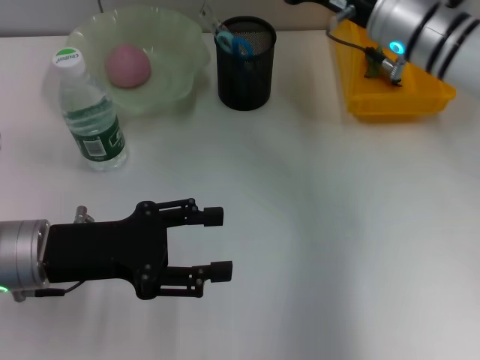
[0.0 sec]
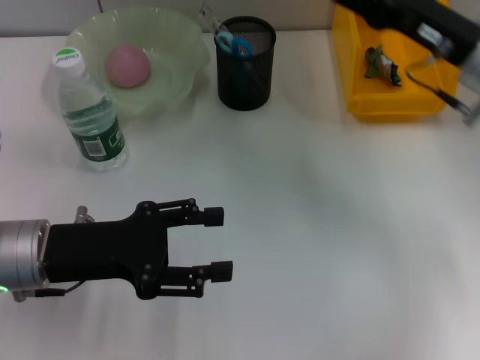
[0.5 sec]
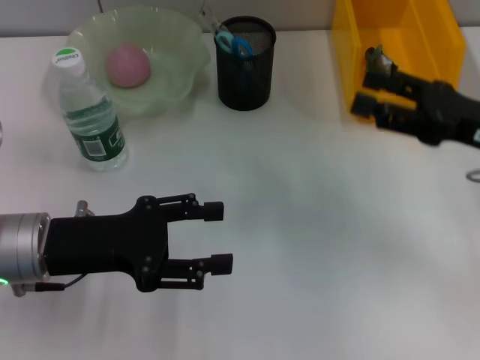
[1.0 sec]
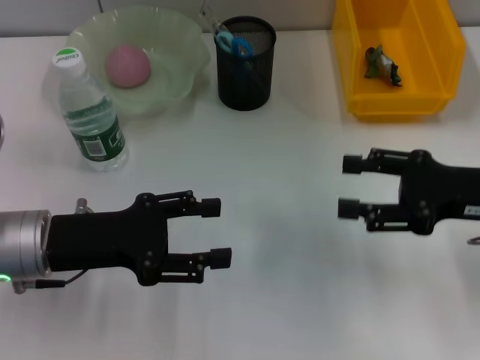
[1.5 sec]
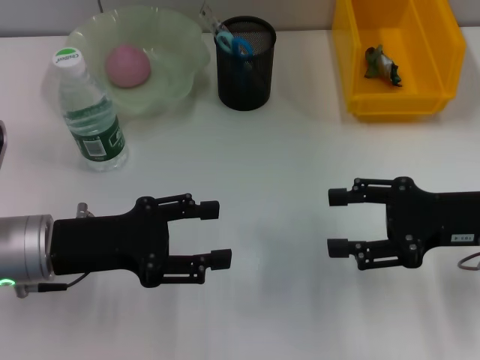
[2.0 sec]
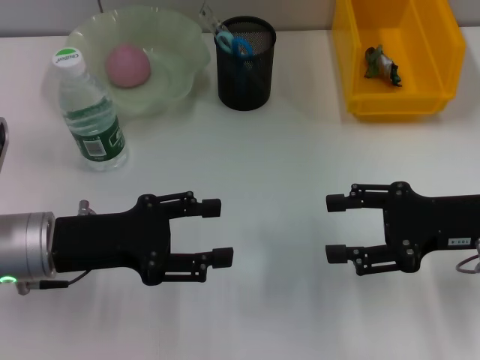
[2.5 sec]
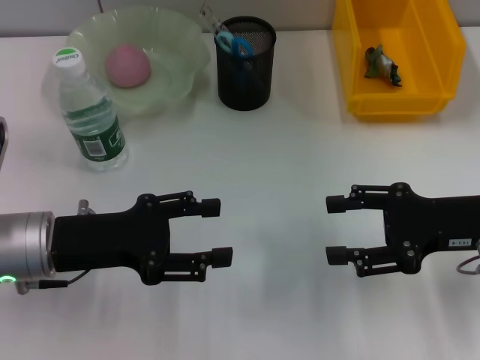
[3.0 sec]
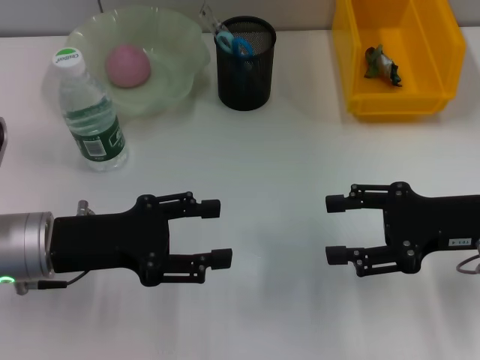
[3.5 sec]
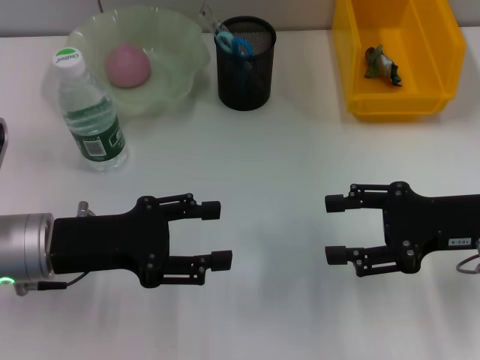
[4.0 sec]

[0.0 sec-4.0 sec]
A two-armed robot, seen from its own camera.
0.0 sec to 2.0 sec: The right gripper heads backward and to the right, covering about 15 cm.
2.0 sec to 4.0 sec: Both grippers stay put.

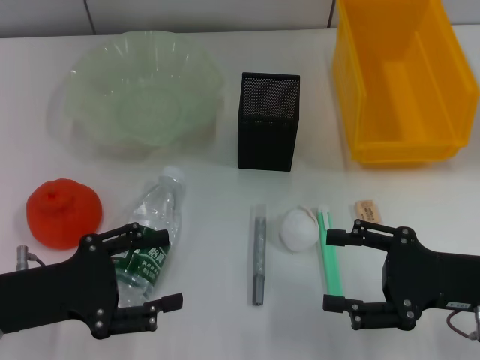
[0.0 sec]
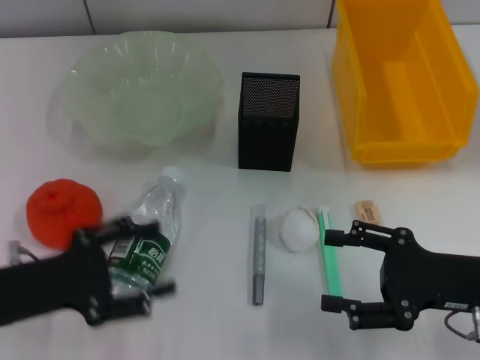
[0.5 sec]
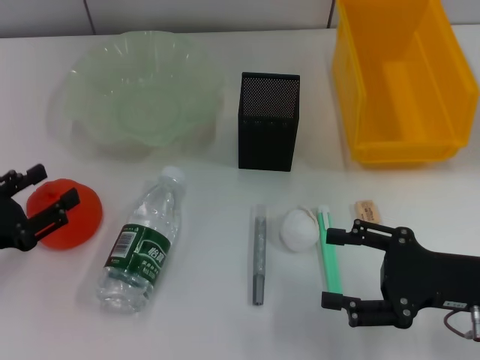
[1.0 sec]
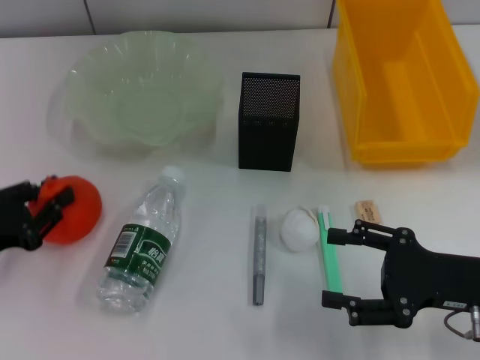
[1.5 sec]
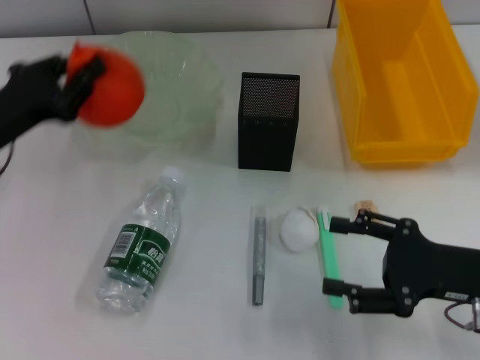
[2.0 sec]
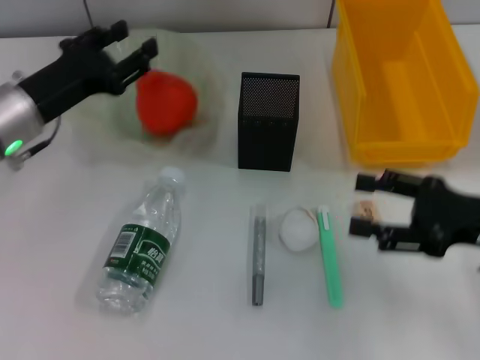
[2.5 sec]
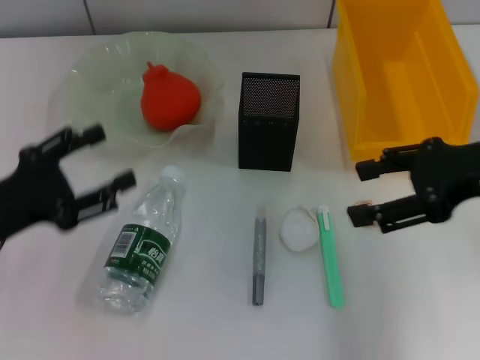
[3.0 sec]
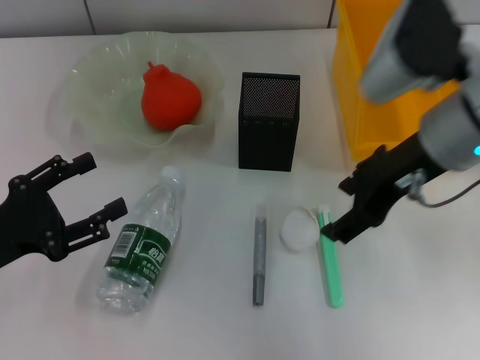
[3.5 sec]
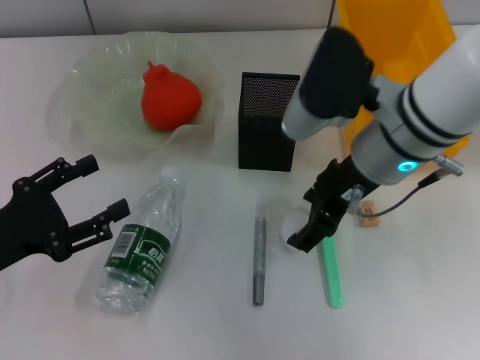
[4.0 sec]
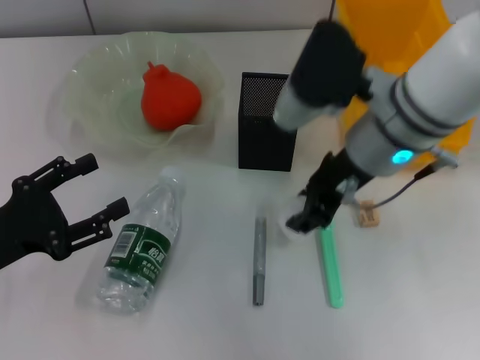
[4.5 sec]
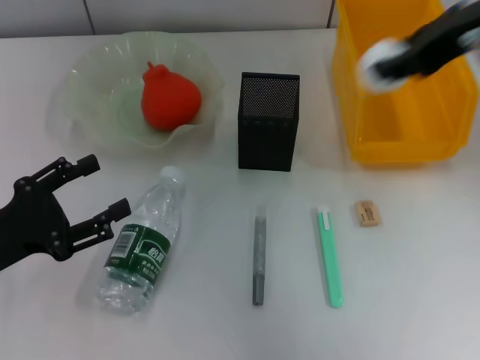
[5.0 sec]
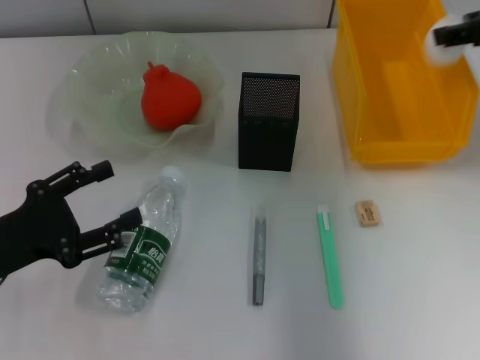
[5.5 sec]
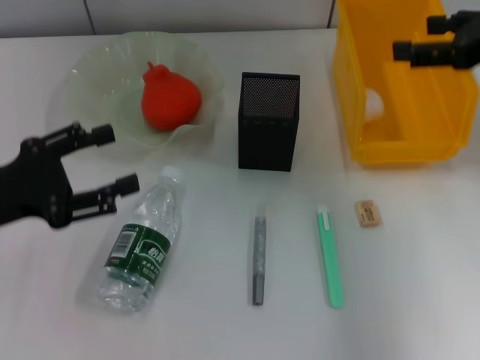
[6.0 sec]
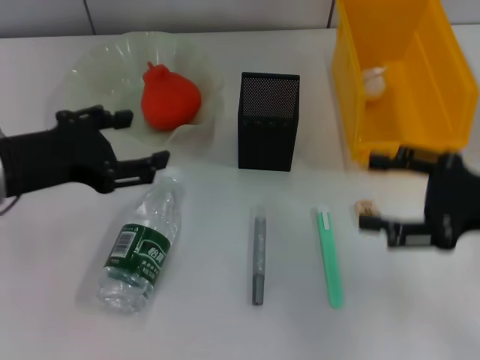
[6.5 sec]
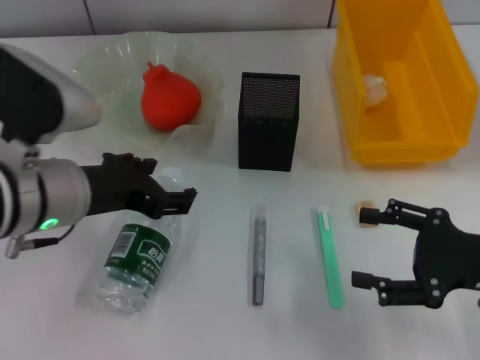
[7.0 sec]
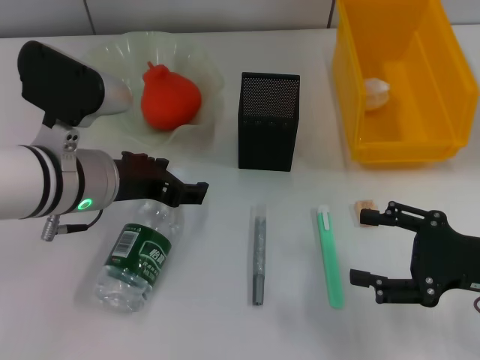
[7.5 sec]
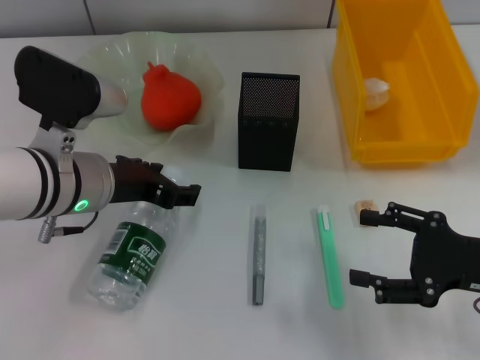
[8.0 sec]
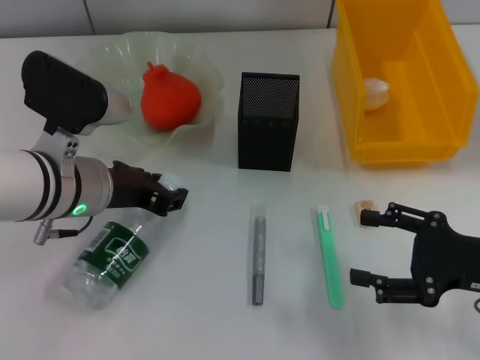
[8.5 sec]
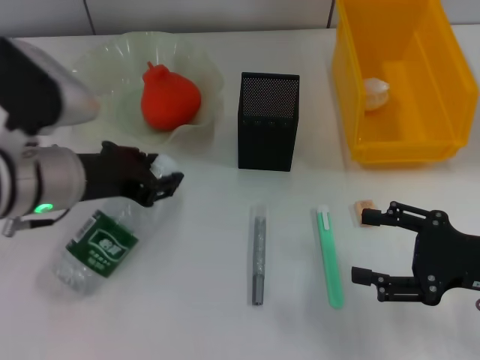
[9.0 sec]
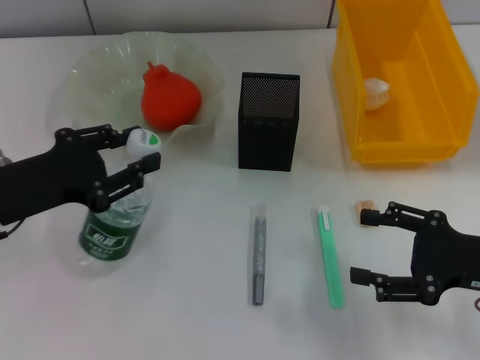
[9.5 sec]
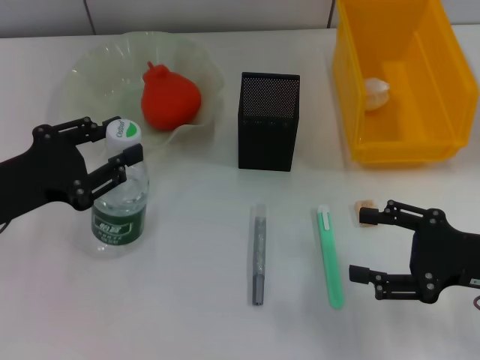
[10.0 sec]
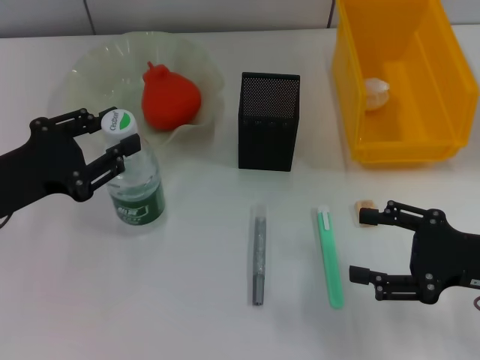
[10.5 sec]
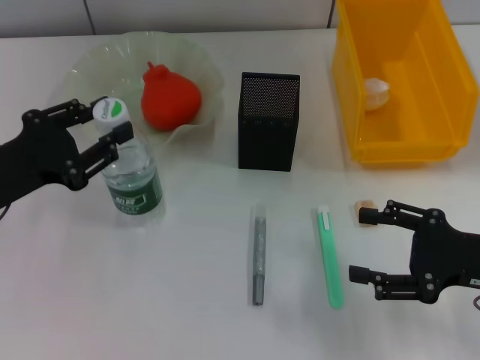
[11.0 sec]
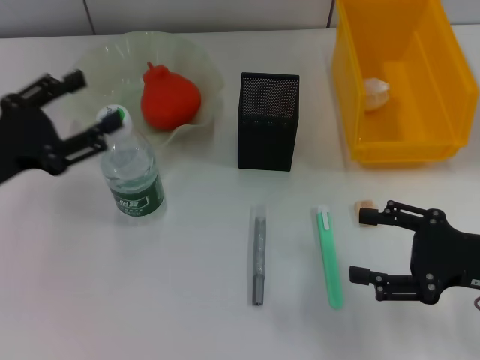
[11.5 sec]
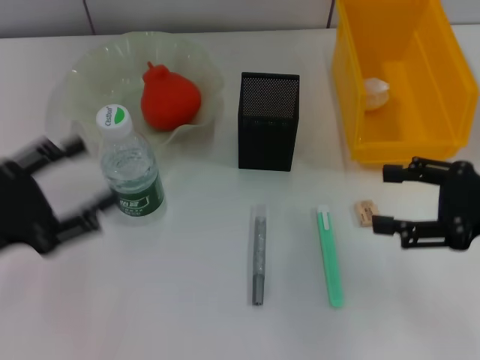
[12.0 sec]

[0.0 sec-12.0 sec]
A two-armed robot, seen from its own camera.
Step, 0.0 sec to 1.0 sec: Grab the orange with the left hand.
Step, 1.5 sec to 2.5 sec: Place the orange into the fruit bowl with the left hand.
Step, 3.0 sec to 4.0 sec: Grab the paper ball with the right hand.
Step, 4.5 sec to 6.0 sec: Place the paper ball into the trash can with the right hand.
Step, 6.5 sec to 8.0 sec: Grab the water bottle with the left hand.
Step, 8.5 sec to 11.5 sec: Place the water bottle on the table with the left hand.
0.0 sec to 2.0 sec: The left gripper goes about 10 cm forward, and closes.
2.0 sec to 4.0 sec: The right gripper shifts roughly 20 cm to the left, forward and upward. The left gripper is displaced backward by some 10 cm, and opens.
4.0 sec to 6.0 sec: The left gripper goes approximately 5 cm upward, while the right gripper travels to the right by roughly 20 cm, and closes and opens again.
6.0 sec to 8.0 sec: The right gripper moves downward and backward, approximately 20 cm. Meanwhile the left gripper is displaced to the right by about 15 cm.
8.0 sec to 10.0 sec: The left gripper goes some 10 cm to the left, and closes up.
10.0 sec to 12.0 sec: The right gripper is displaced upward by about 5 cm. The left gripper opens its fingers.

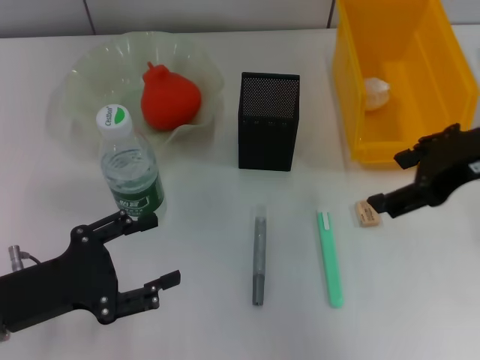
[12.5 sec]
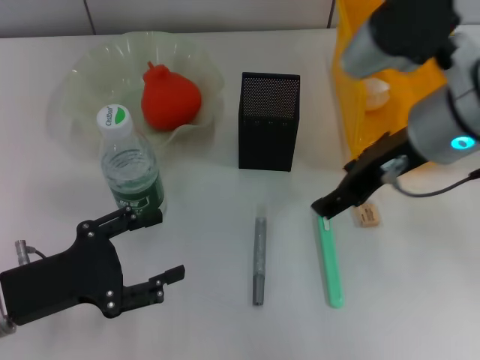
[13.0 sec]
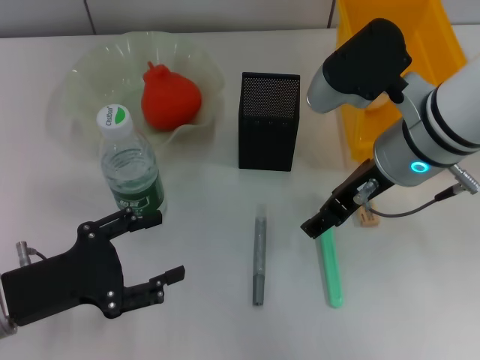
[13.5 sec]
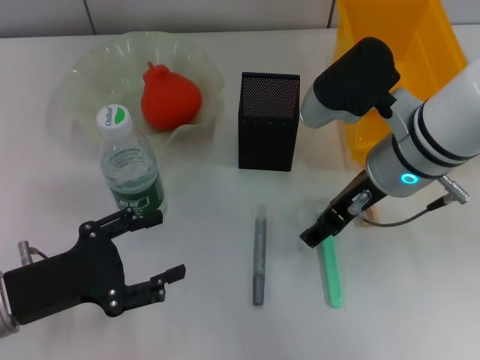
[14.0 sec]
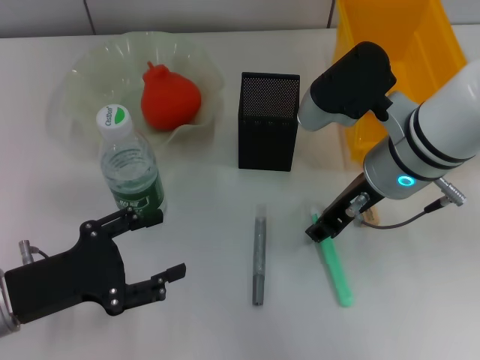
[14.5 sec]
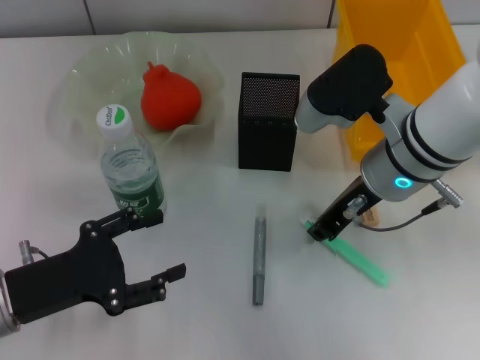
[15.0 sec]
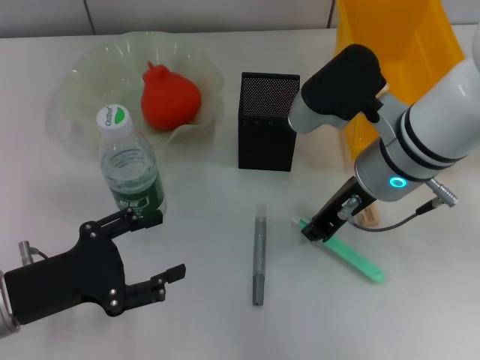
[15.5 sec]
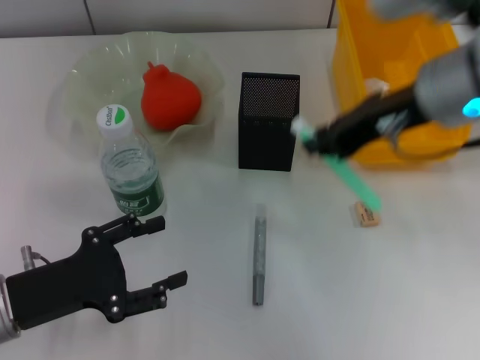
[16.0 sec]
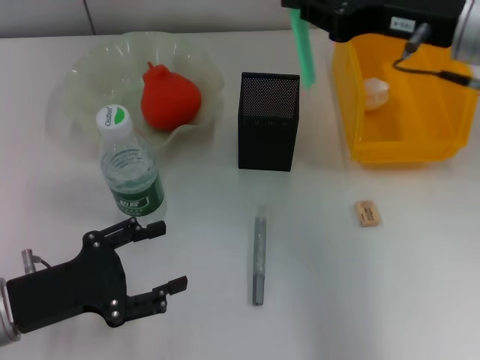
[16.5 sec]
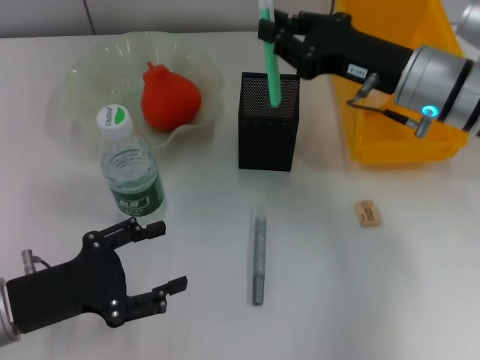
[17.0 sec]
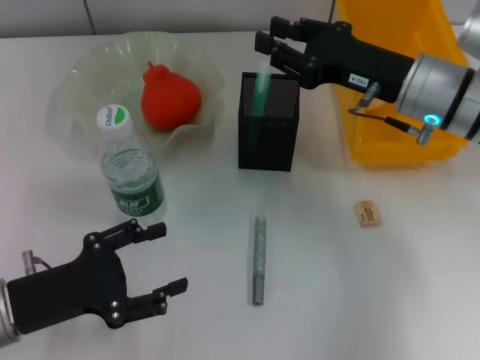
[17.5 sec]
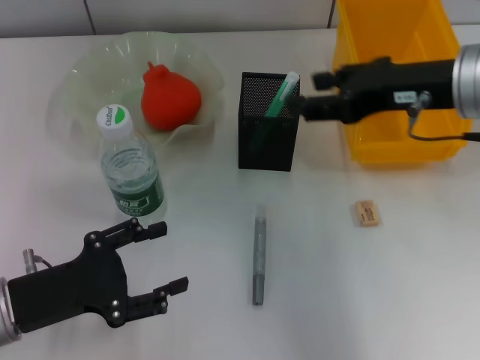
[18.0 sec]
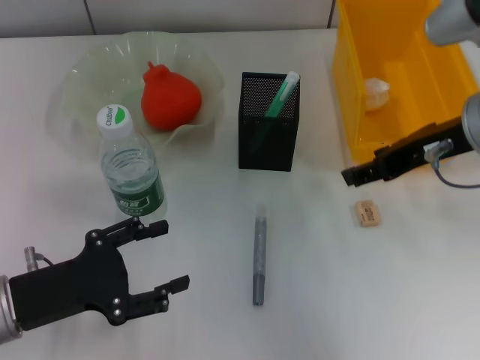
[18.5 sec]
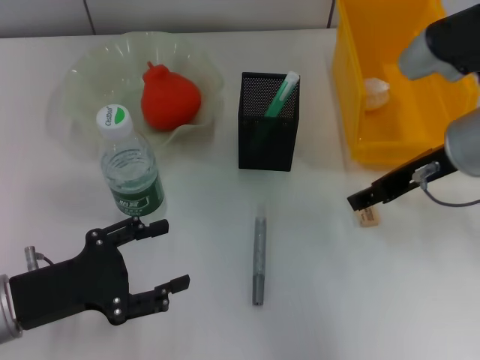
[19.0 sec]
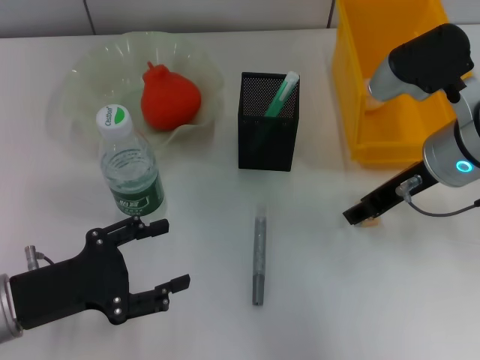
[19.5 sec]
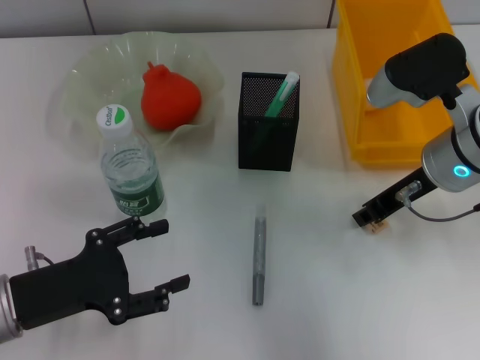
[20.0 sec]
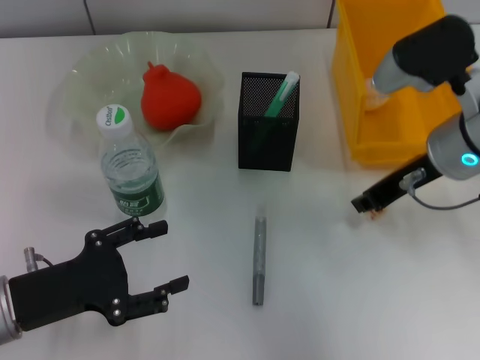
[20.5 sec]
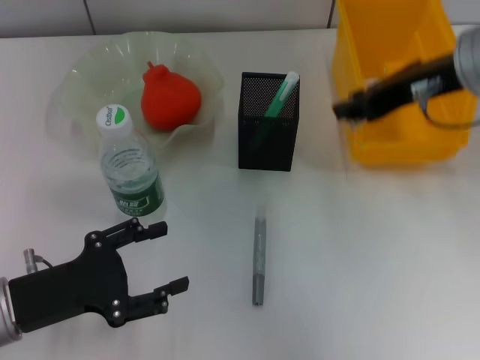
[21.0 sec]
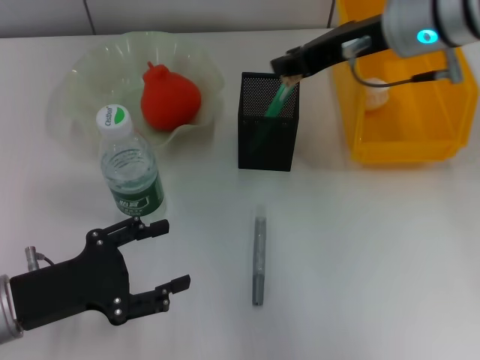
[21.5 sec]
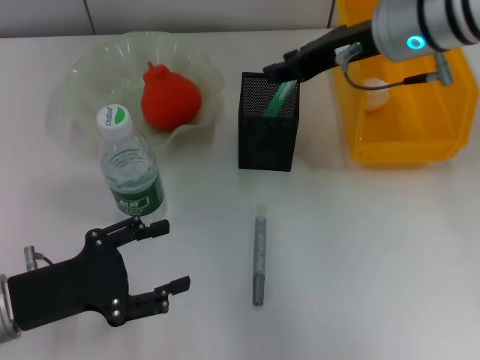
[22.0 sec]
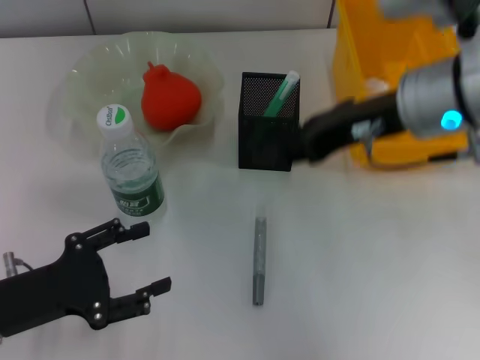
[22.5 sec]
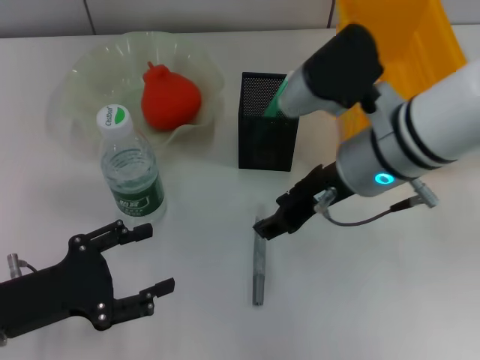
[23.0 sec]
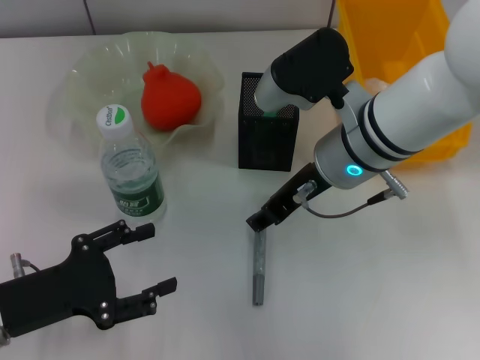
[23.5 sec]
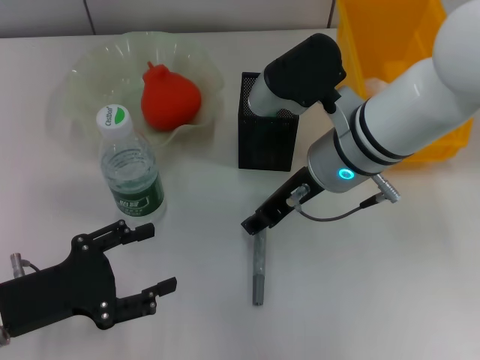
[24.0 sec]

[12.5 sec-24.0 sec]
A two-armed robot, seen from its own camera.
Step, 12.5 sec to 15.0 sec: Grab the blue utility knife with the right hand.
Step, 15.5 sec to 17.5 sec: Place the blue utility knife into the pen holder with the right hand.
Step, 18.0 sec to 19.5 sec: Grab the eraser with the right hand.
Step, 20.5 sec to 22.0 sec: Put the eraser into the pen holder with the right hand.
12.5 sec to 14.5 sec: The right gripper is displaced to the left and downward by roughly 10 cm.
14.5 sec to 16.5 sec: The right gripper shifts roughly 10 cm upward and to the right, and closes up.
16.5 sec to 18.5 sec: The right gripper opens its fingers.
18.5 sec to 20.0 sec: The right gripper moves downward, roughly 5 cm, and closes up.
20.0 sec to 22.0 sec: The right gripper moves upward and forward, approximately 10 cm.
22.0 sec to 24.0 sec: The right gripper heads downward, to the left and backward, covering about 10 cm.
